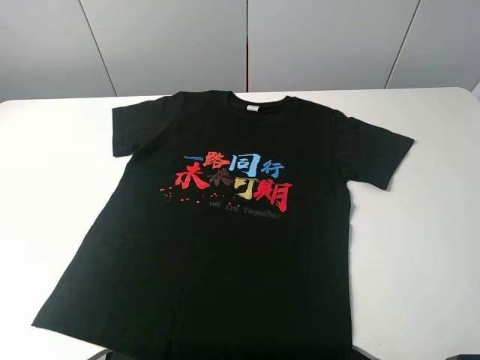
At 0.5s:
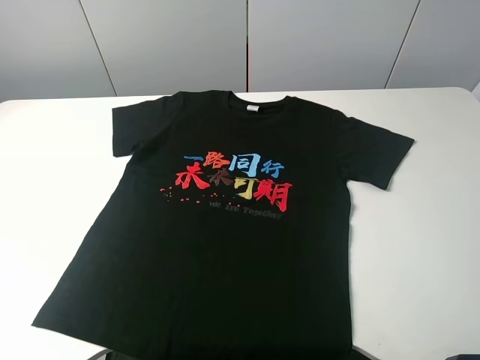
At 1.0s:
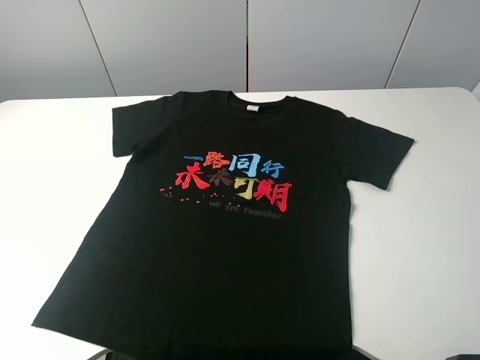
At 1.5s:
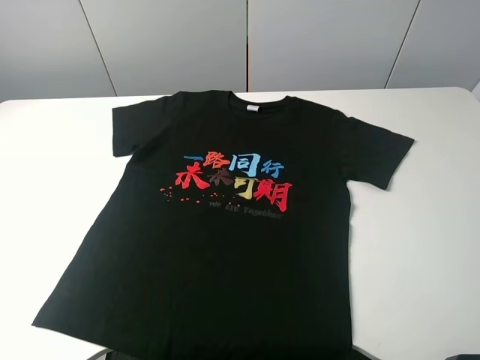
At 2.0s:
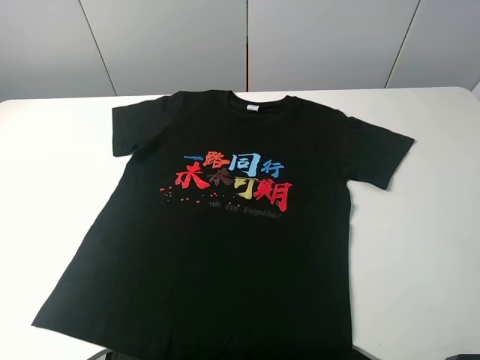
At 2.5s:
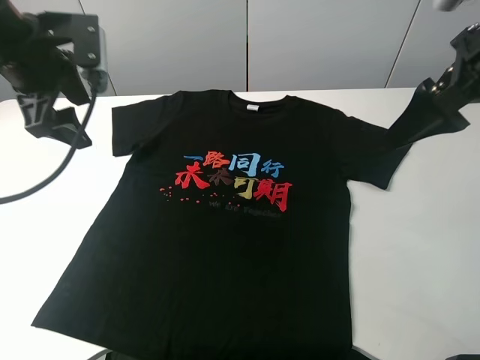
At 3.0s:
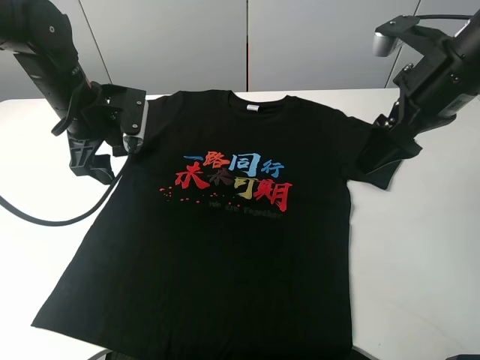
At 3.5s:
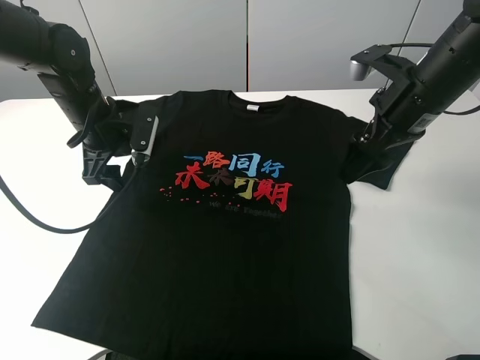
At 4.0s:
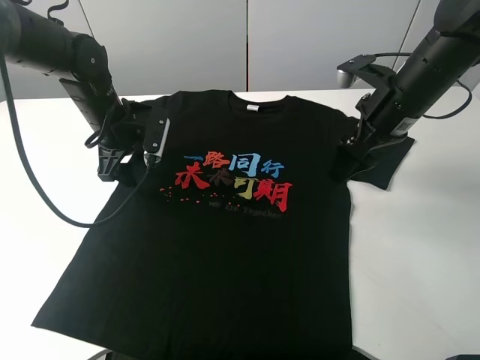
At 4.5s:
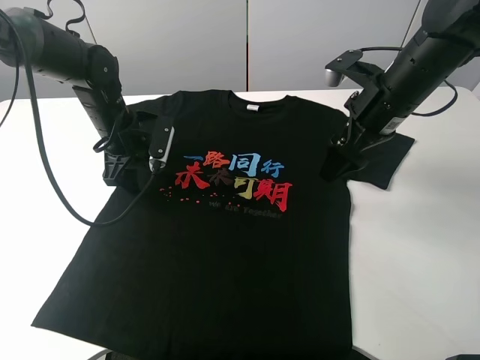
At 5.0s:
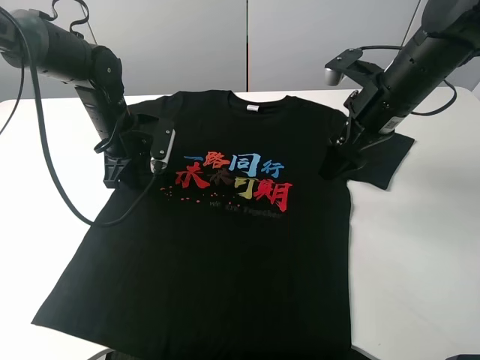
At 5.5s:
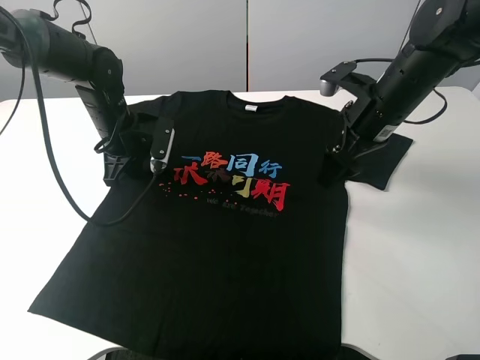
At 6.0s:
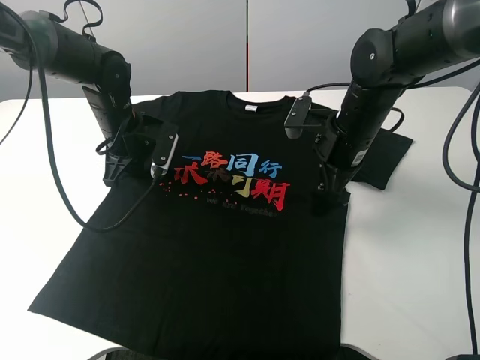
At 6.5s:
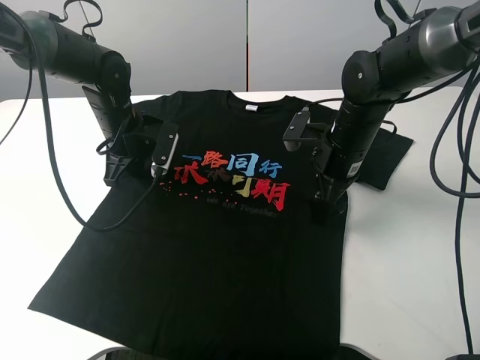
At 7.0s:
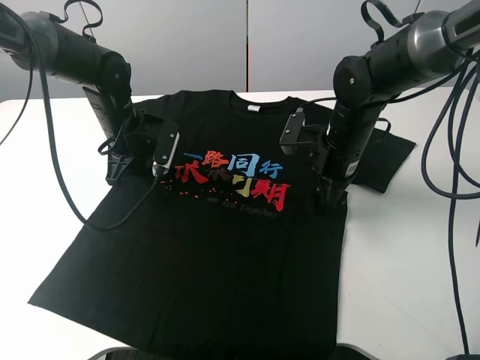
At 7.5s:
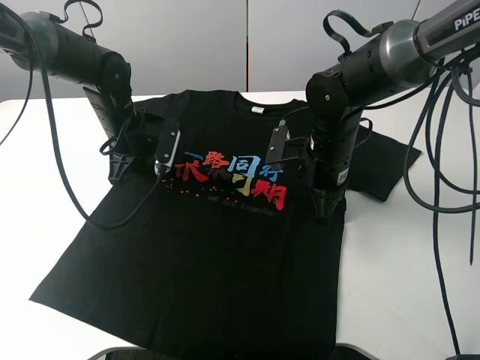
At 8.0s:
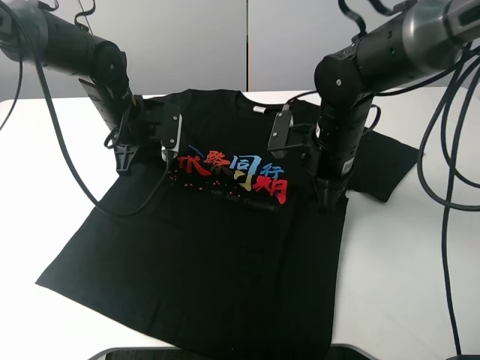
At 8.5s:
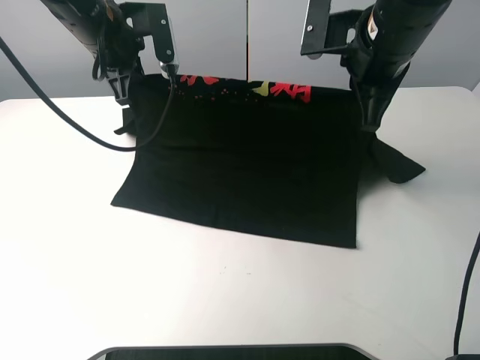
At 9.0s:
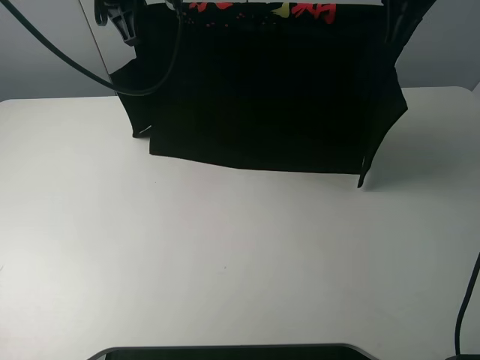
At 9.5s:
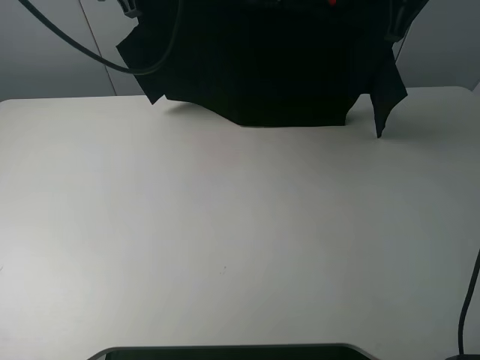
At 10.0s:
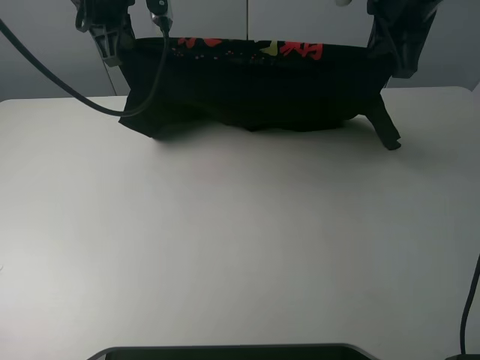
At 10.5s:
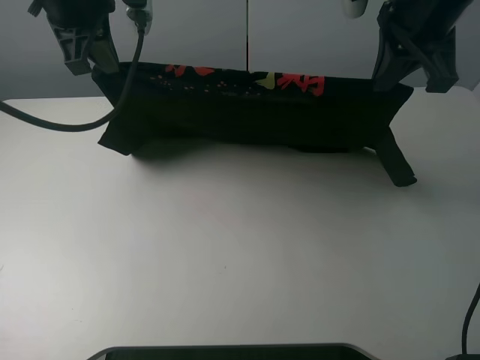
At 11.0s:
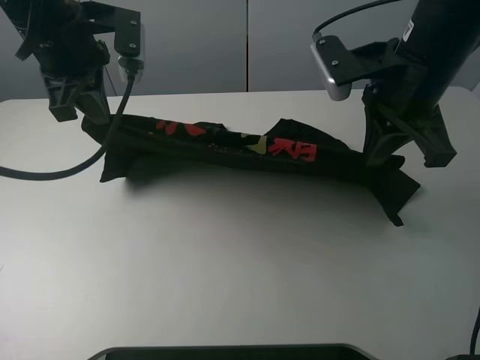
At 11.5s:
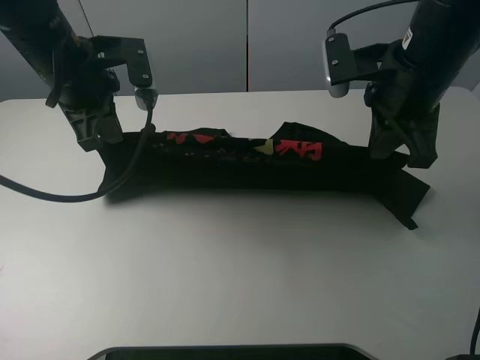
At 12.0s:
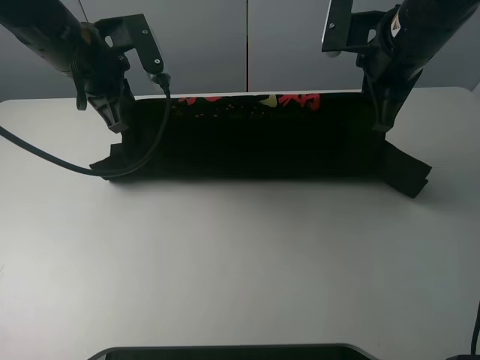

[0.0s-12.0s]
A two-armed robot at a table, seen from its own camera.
Task of the whole recording: fold the clothes on the table.
Step, 0.0s to 7.5s: Lift the black T-shirt with the left gripper.
2.0s to 4.0s: The right gripper is displaced downward and forward by about 25 cm; the left gripper moves downward, forward and to the right, about 35 cm.
4.0s to 6.0s: The right gripper moves downward and to the left, some 10 cm. The left gripper closes.
6.0s to 8.0s: The right gripper closes its fingers.
8.0s to 10.0s: Both grippers travel together upward, some 15 cm.
10.0s to 12.0s: The right gripper heads downward, covering roughly 5 cm; the left gripper travels downward and backward by approximately 10 cm.

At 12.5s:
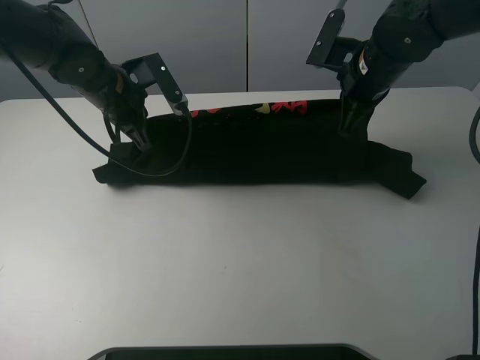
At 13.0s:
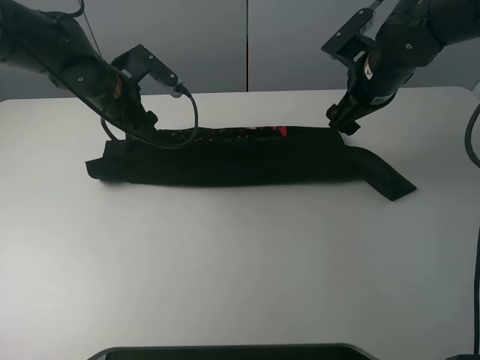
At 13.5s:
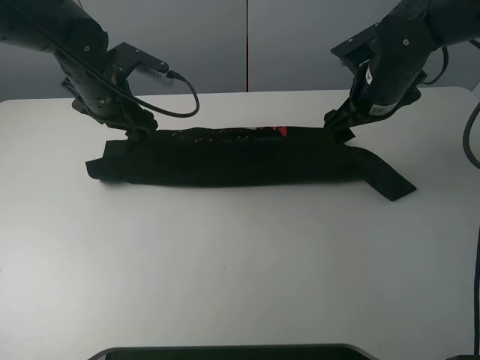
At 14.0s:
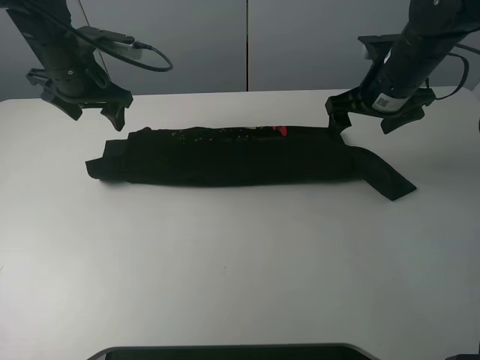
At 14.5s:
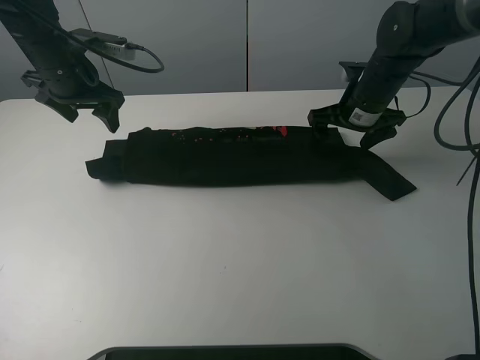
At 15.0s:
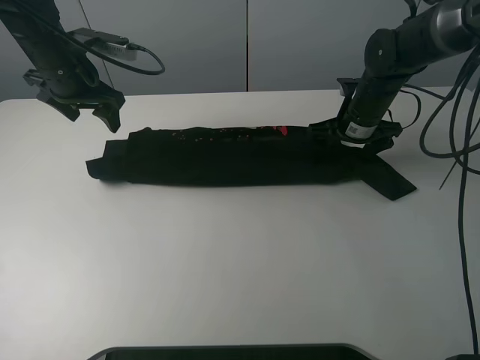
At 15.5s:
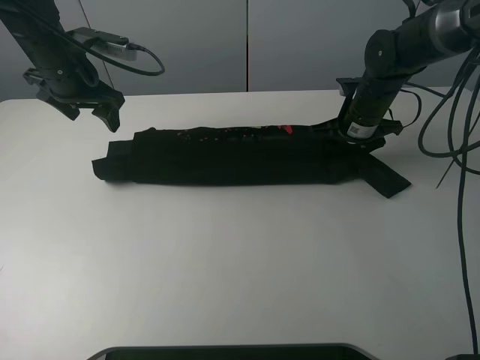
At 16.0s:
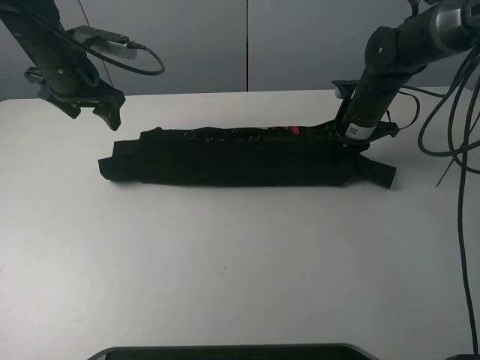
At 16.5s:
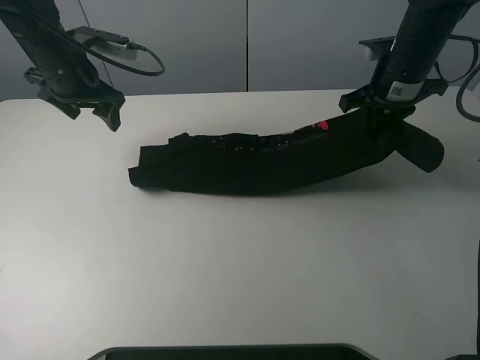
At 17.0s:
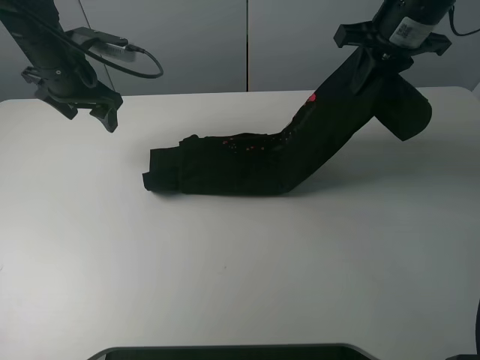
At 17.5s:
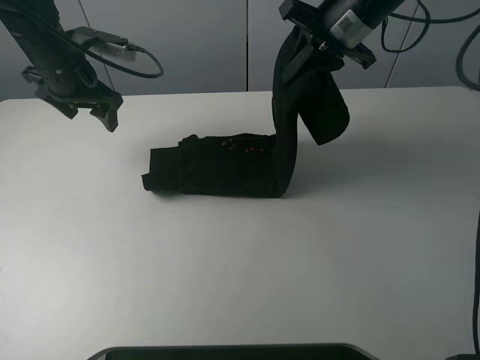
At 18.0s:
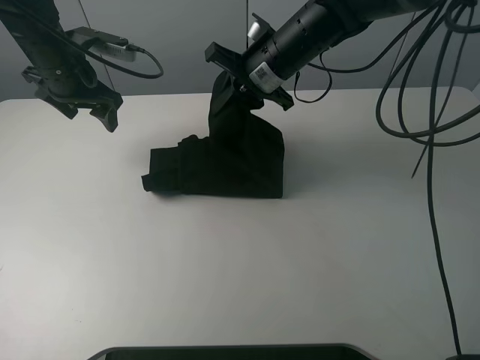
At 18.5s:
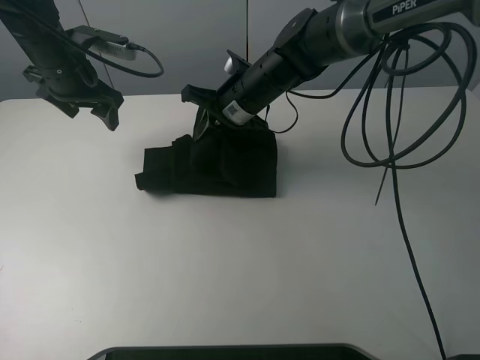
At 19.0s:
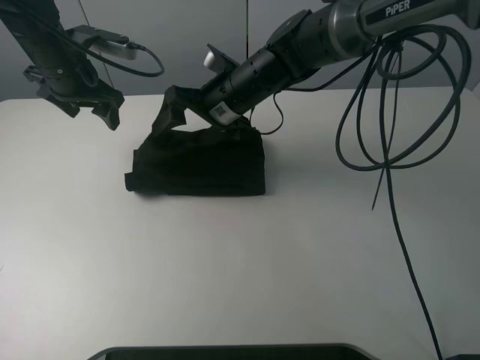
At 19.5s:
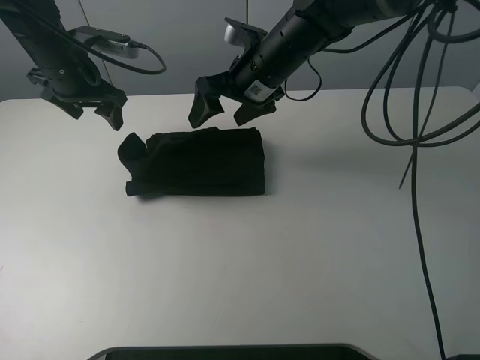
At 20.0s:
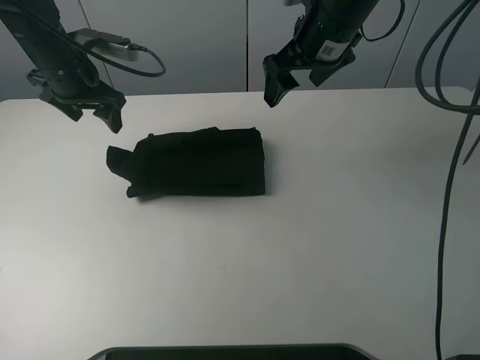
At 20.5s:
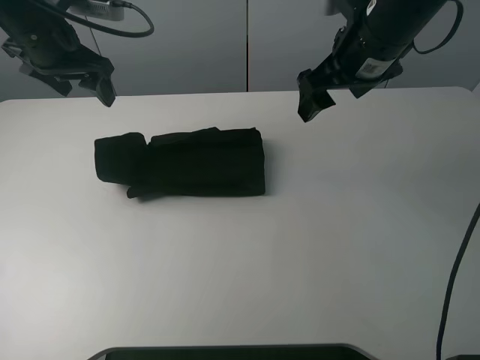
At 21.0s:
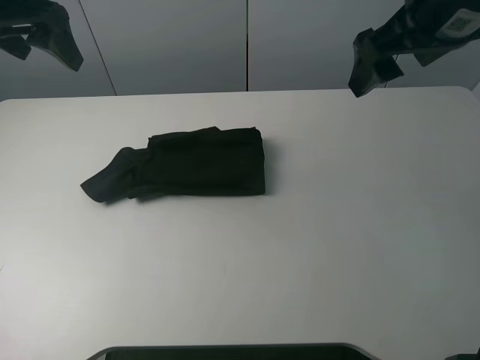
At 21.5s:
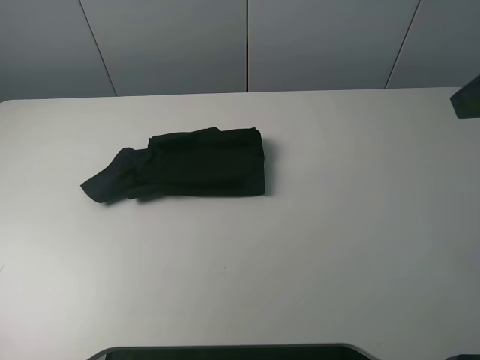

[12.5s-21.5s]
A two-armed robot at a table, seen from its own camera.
Task of the whole recording: fold the clothes on the table.
Step, 13.5s to 15.5s: Grasp the black T-shirt with the right gripper.
Step, 16.0s to 19.5s: Fold the black T-shirt from right to left with right gripper.
12.5s to 14.5s: The right gripper moves downward, roughly 5 cm, and opens its fingers. The left gripper goes some 5 cm to the left, and opens its fingers.
14.5s to 17.0s: The right gripper goes roughly 15 cm upward, and closes its fingers.
17.0s to 19.5s: The right gripper moves to the left and downward, approximately 15 cm, and opens its fingers.
19.5s to 21.5s: The left gripper shifts approximately 30 cm backward and upward; the right gripper moves backward, to the right and upward, about 35 cm.

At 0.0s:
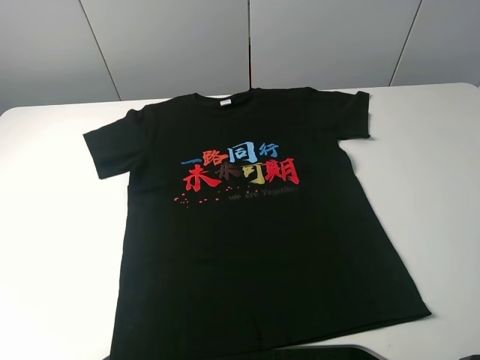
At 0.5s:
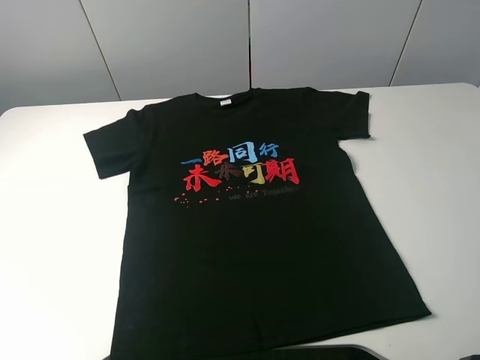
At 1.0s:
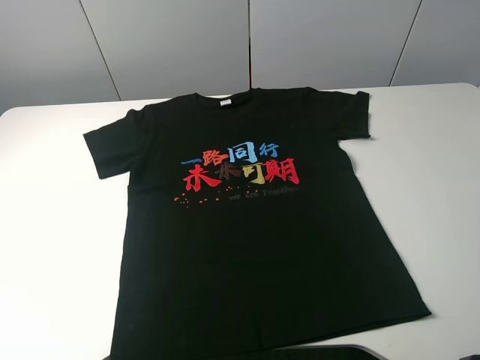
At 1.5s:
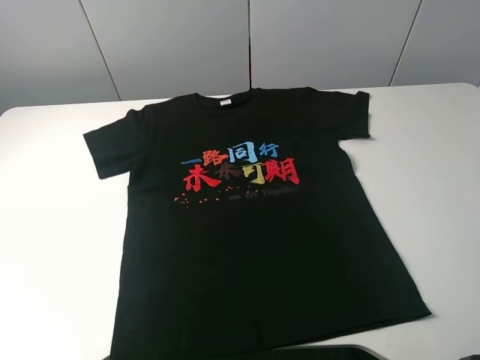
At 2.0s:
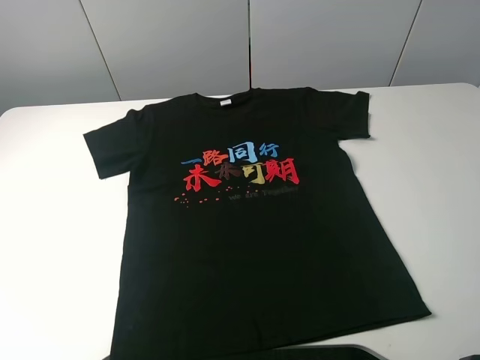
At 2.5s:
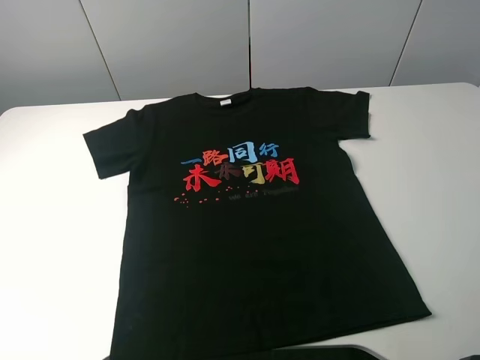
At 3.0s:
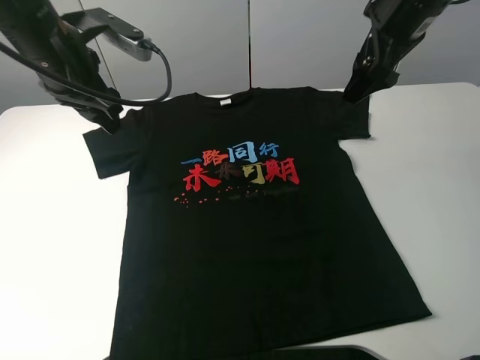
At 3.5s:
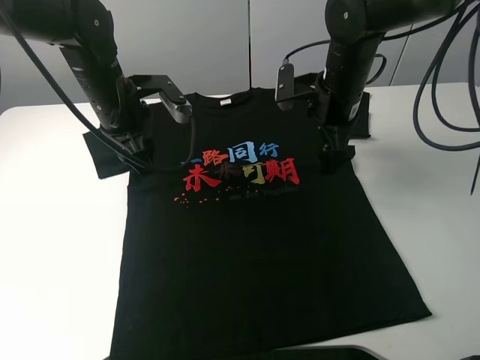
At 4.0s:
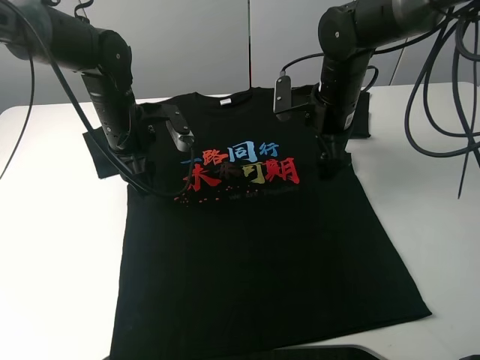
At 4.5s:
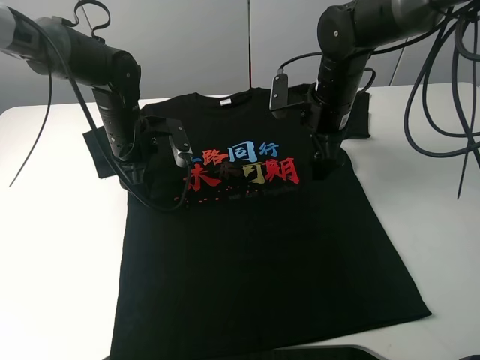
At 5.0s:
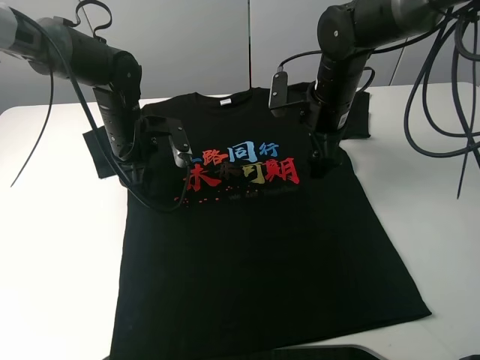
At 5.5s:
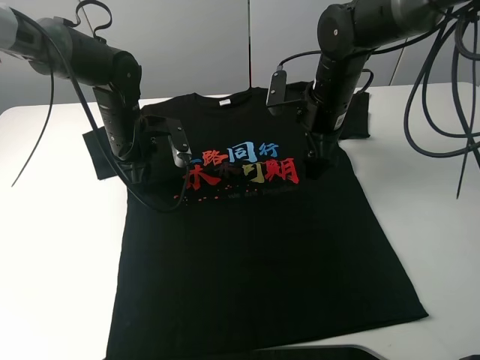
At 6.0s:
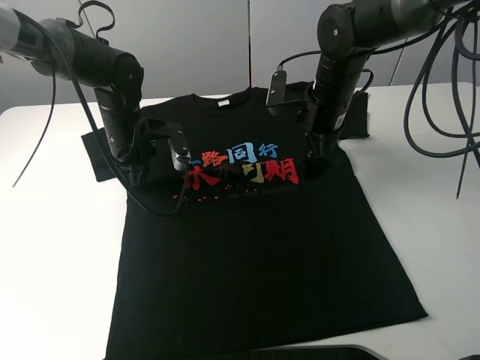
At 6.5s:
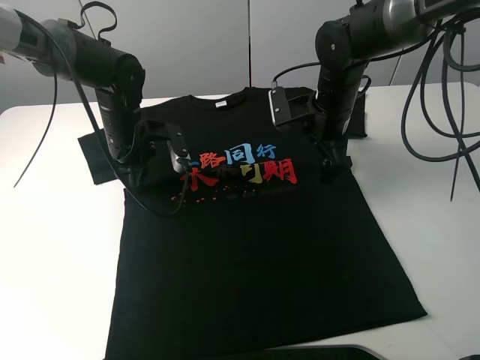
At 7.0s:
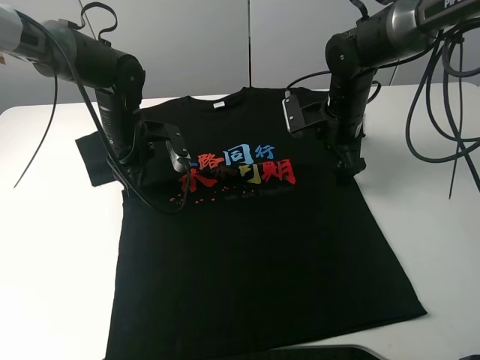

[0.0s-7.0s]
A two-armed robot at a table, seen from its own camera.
Task of the whole recording: fold the clothes on the table.
Step, 0.0s to 6.0s: Lift the black T-shirt with the left gripper.
2.0s to 3.5s: The right gripper heads forward, downward and to the left, covering some 40 cm, while the left gripper goes approximately 40 cm forward, to the right and downward.
3.5s to 5.0s: The left gripper travels downward by approximately 5 cm.
5.0s to 7.0s: The left gripper closes its fingers; the right gripper ends up roughly 5 cm from where it was.
